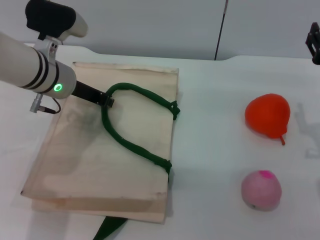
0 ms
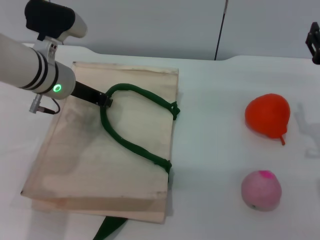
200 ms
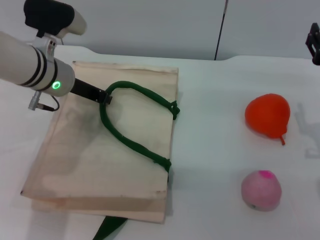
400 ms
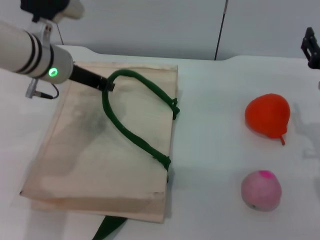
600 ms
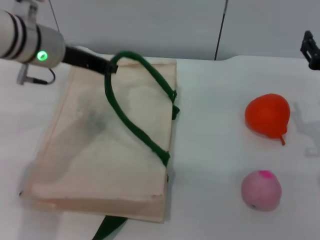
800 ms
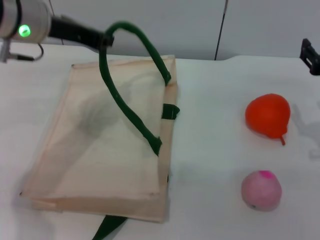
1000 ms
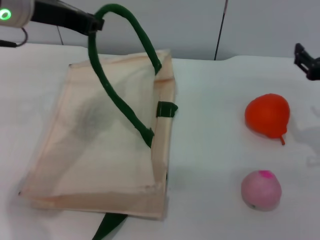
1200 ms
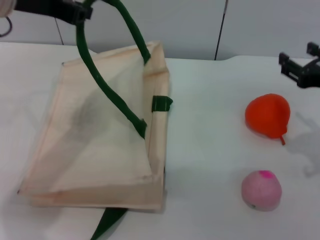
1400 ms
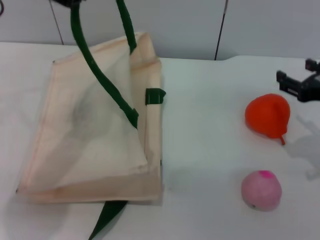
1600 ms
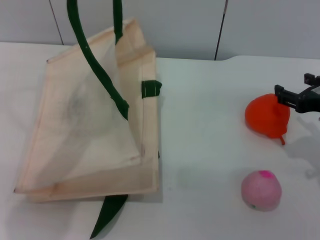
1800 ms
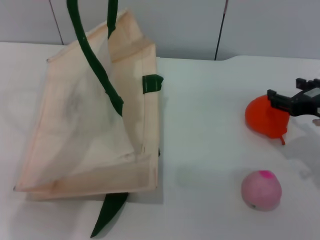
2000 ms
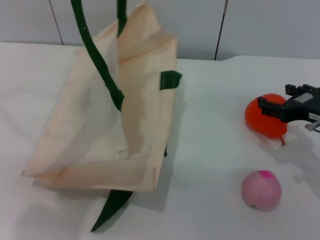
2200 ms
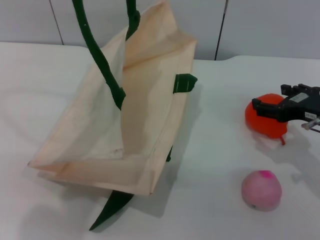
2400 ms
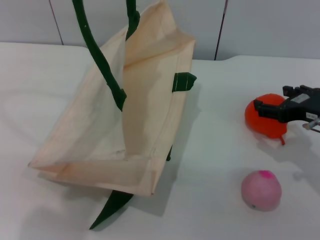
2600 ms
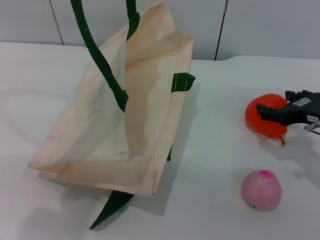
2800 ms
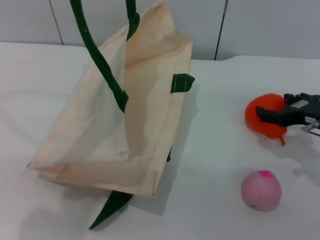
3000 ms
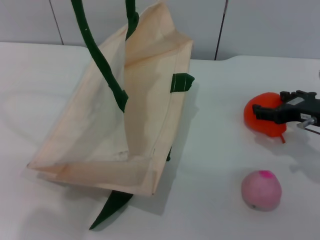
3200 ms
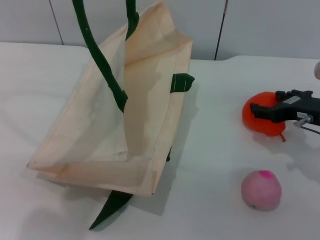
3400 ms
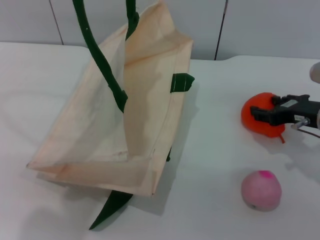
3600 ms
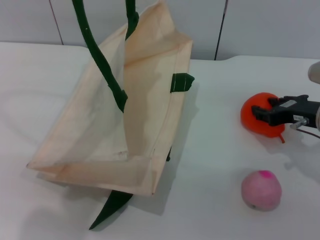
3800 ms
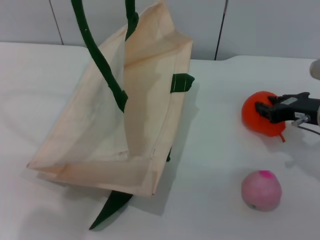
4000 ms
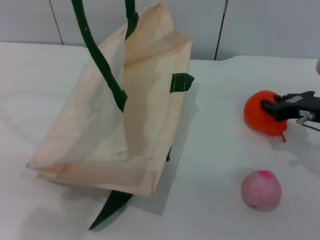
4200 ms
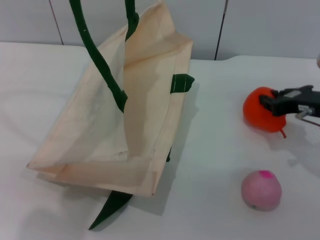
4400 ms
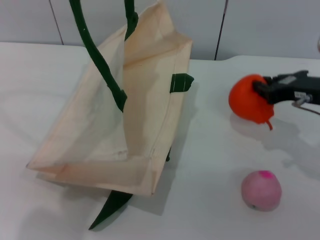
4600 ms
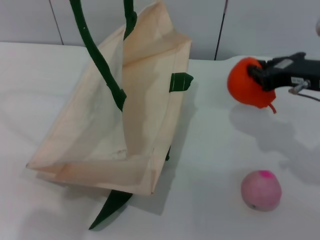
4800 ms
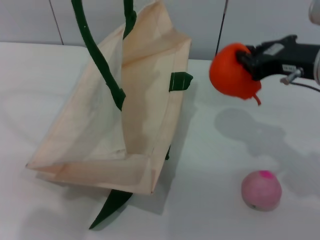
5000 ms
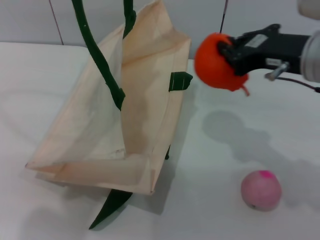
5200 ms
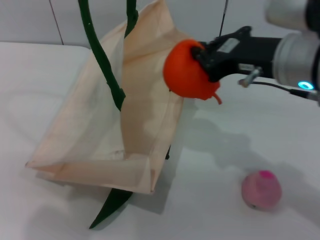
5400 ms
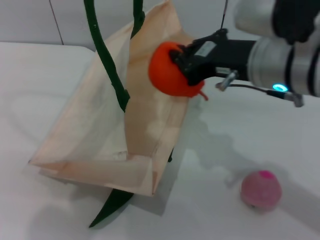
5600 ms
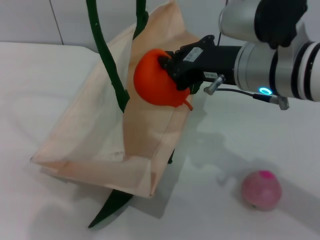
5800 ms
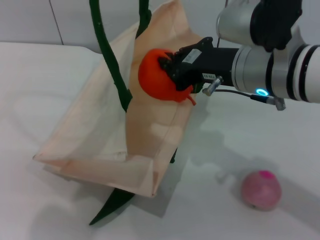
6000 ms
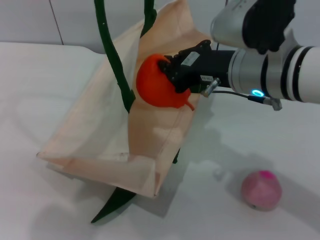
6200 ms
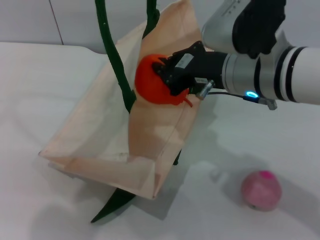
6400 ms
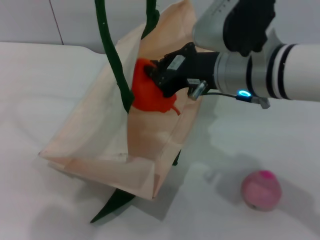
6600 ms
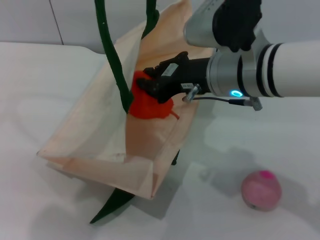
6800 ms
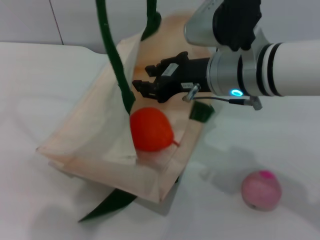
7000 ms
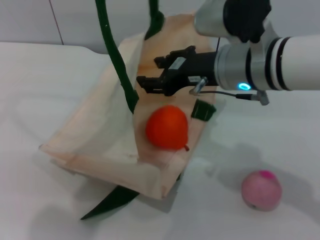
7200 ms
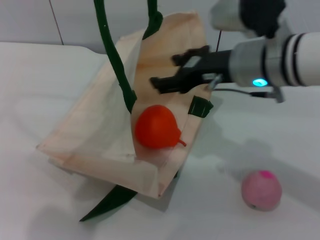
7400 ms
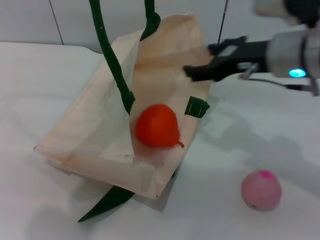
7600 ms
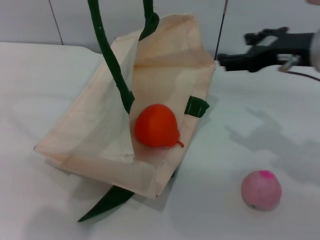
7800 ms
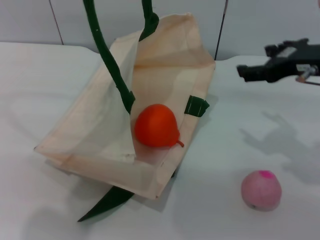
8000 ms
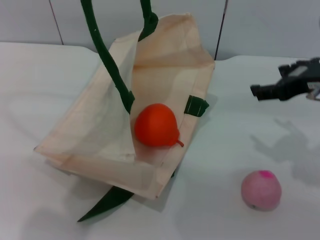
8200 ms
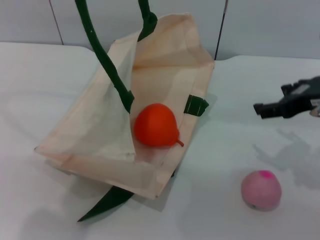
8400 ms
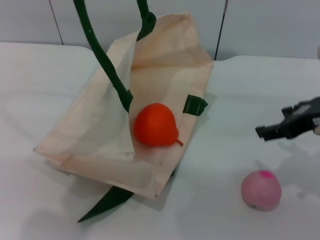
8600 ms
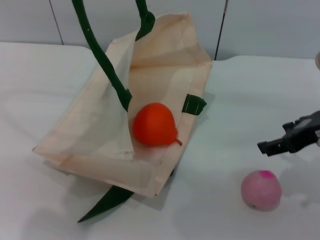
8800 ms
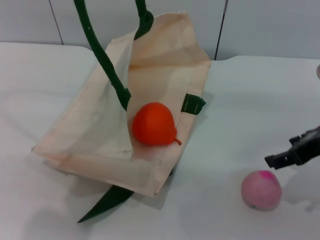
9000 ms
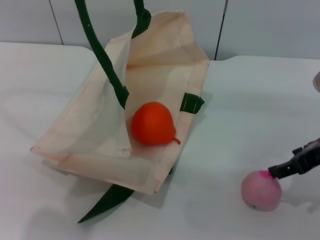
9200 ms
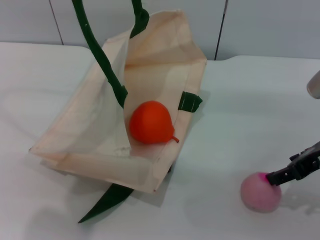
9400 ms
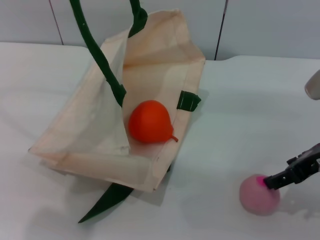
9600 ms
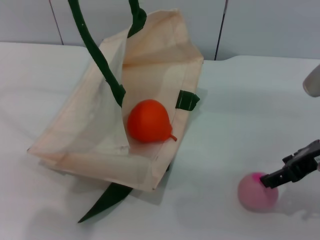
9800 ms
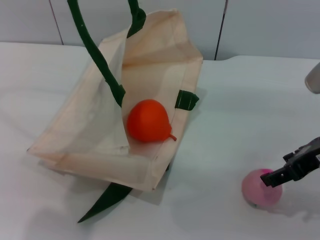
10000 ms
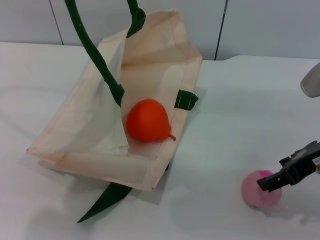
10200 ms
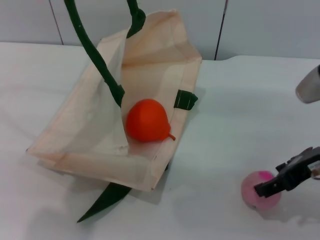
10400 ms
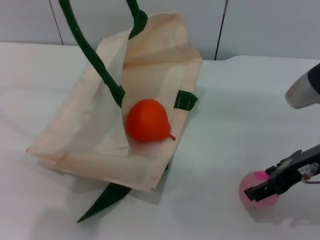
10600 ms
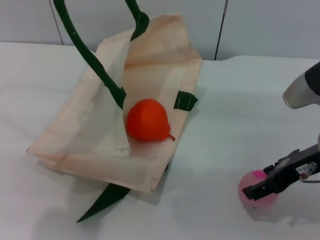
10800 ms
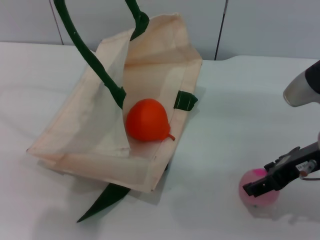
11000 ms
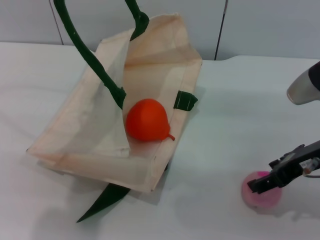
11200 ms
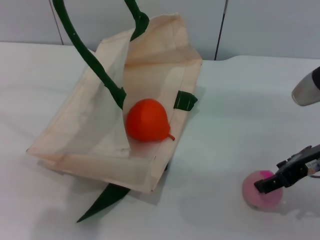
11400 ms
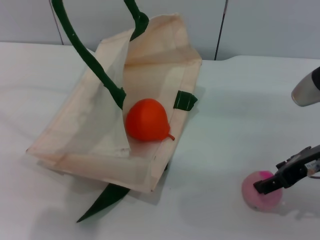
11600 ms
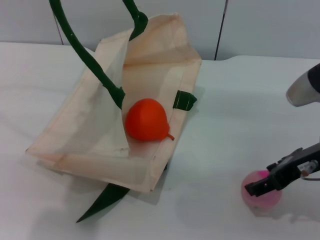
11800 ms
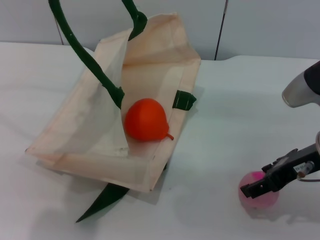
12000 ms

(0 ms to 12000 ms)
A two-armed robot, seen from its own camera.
Task of the whole recording: pick up the orange and peach from the table and place it in the white handbag.
Step, 1600 ms - 4800 ms: Pick up the orange with the right gripper.
Step, 5000 ms - 7200 ms: Place the orange into the woven bag with the right gripper.
0 ms - 1600 ms: The left gripper goes some 20 cm upward, and closes.
1600 ms - 3000 ms: The left gripper moves upward, approximately 5 cm.
3000 ms - 4400 ms: The right gripper closes its fingers.
4400 ms - 6000 ms: The right gripper goes roughly 15 cm to the left and upward.
6000 ms - 7600 ms: The right gripper shifts by roughly 5 cm, and opens its fingers.
7600 ms - 9000 ms: The right gripper moves to the right and backward, approximately 10 cm.
9000 ms - 12000 ms: The grippers make only small movements.

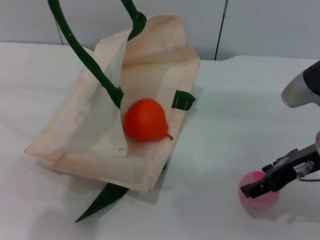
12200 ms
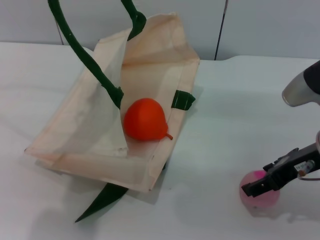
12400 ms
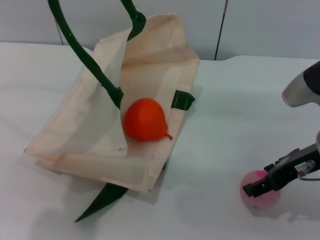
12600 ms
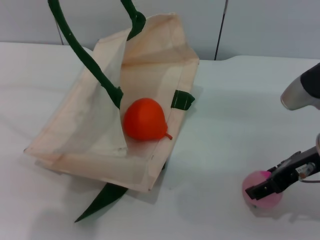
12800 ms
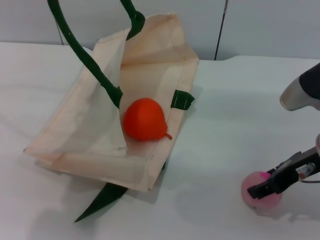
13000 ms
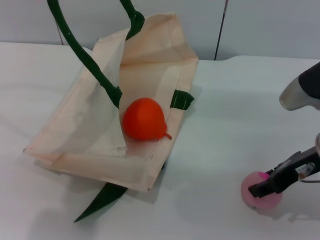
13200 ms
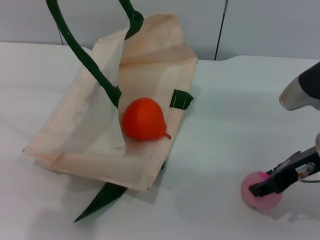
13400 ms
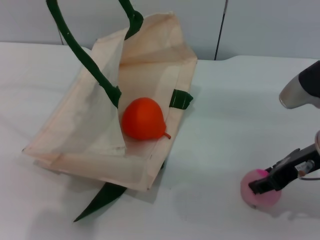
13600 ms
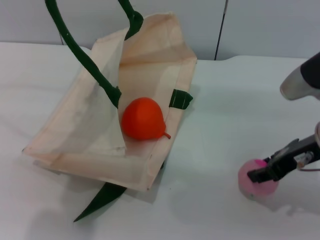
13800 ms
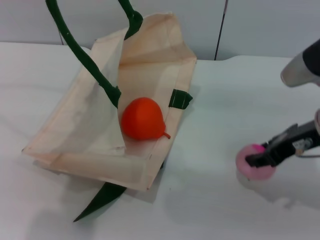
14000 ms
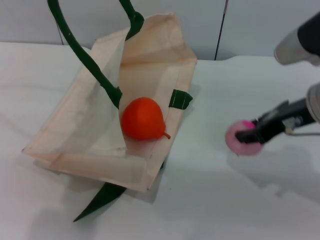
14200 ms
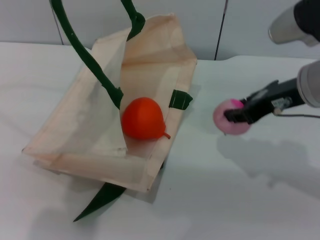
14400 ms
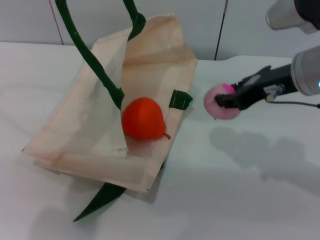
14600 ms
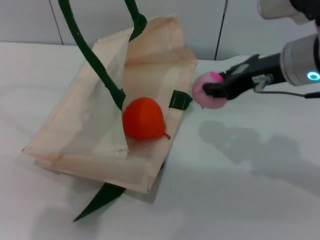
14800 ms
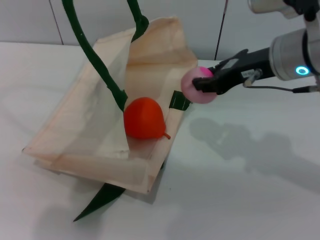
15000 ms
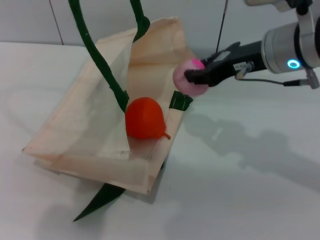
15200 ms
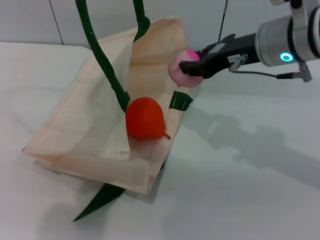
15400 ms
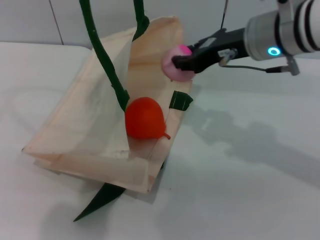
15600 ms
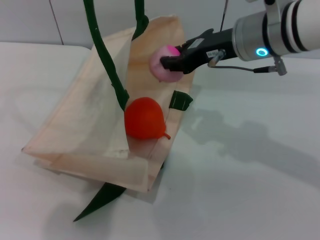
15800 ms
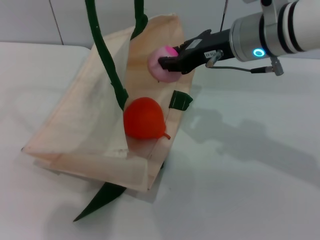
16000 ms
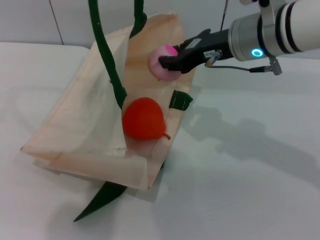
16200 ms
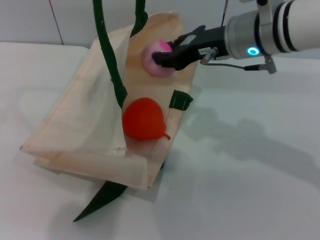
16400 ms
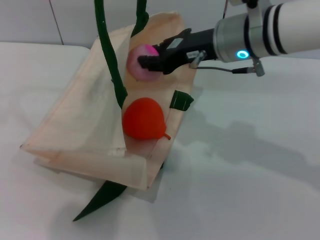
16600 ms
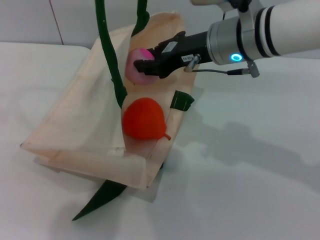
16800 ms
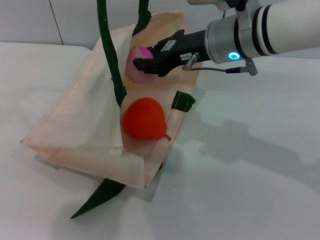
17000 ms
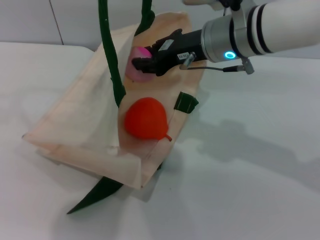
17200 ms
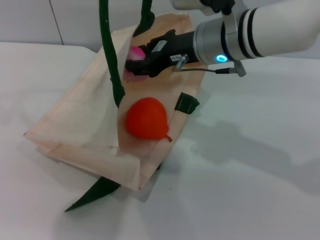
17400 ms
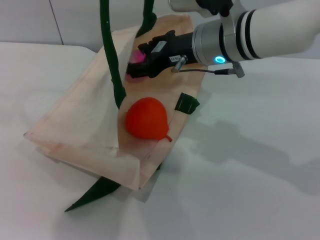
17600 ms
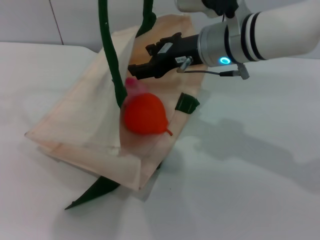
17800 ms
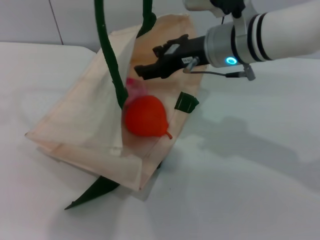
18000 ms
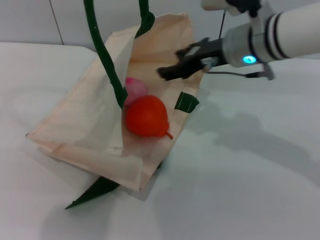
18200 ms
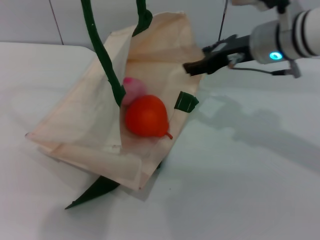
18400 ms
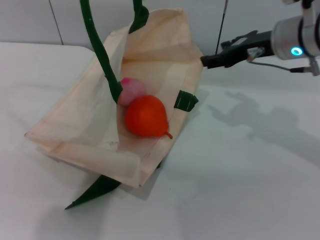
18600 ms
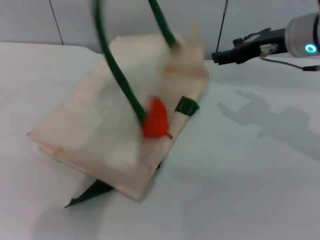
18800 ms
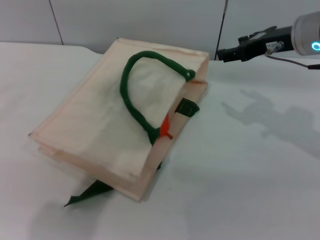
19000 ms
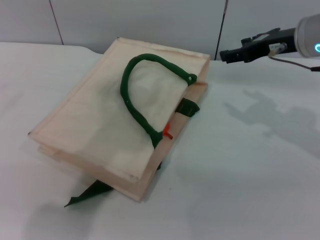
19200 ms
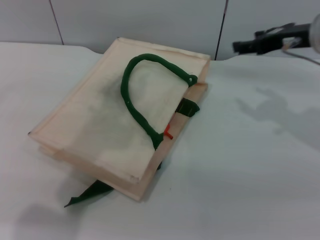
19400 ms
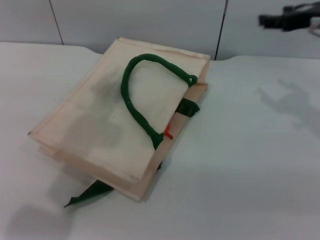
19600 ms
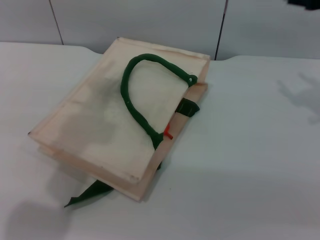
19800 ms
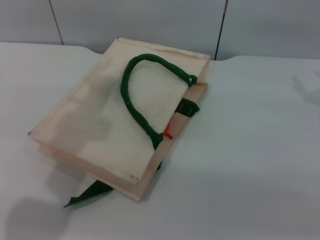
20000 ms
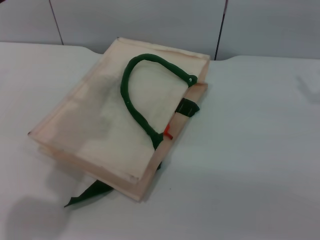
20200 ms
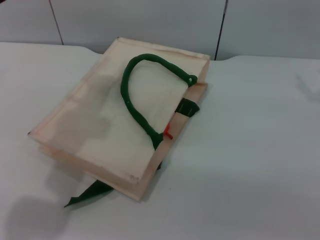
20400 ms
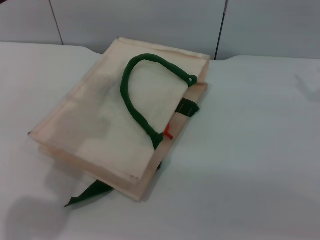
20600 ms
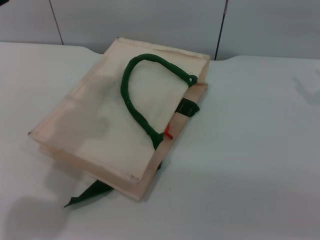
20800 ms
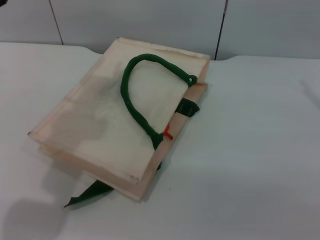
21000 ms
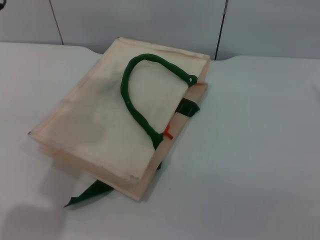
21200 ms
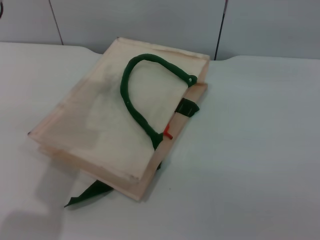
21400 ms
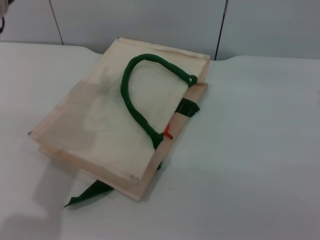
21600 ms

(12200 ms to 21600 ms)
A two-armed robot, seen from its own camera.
Task of the whole recording: pick up the orange and peach from the table and place it in the white handbag.
Step, 14200 ms - 18000 ms: Place the peach into the woven bag with the right gripper.
Step, 18200 ms - 19000 ms: Lower the woven bag with the left gripper to close it.
12200 ms - 13800 ms: The right gripper closes up.
13800 ms - 15400 ms: The right gripper travels to the left, forward and upward by some 10 cm.
15400 ms - 17000 ms: The right gripper shifts some 5 cm to the left.
17000 ms - 18400 ms: The right gripper goes some 5 cm to the right, and opens its fingers.
18400 ms - 20000 ms: The left gripper is displaced downward by approximately 10 cm, and opens, while the right gripper is displaced to the right by about 15 cm.
20000 ms - 21600 ms: The left gripper travels downward by roughly 5 cm.

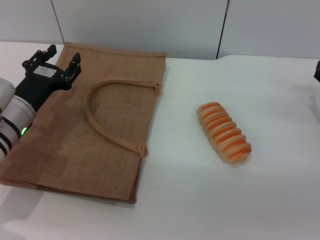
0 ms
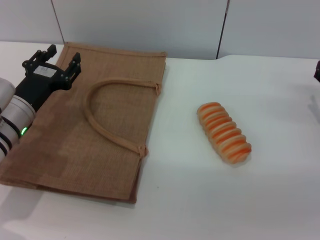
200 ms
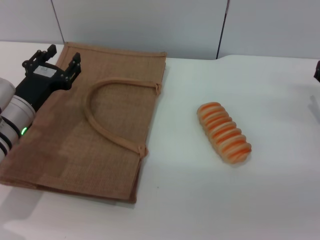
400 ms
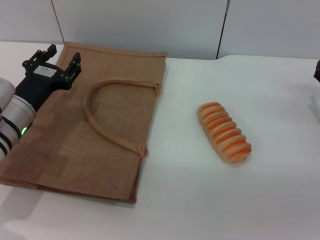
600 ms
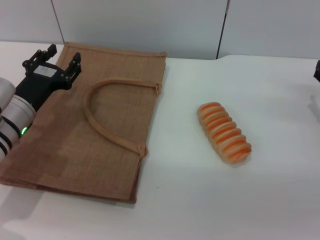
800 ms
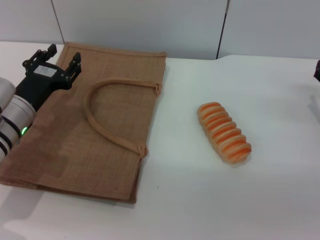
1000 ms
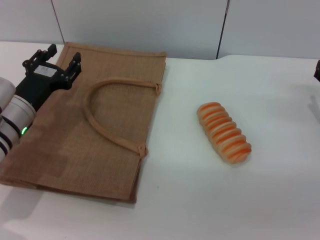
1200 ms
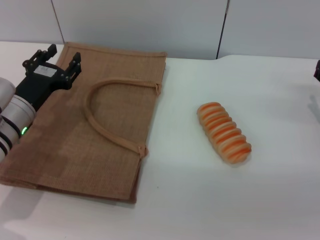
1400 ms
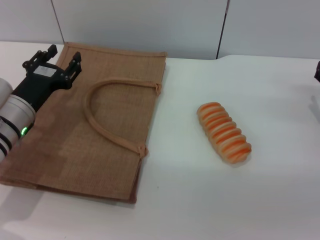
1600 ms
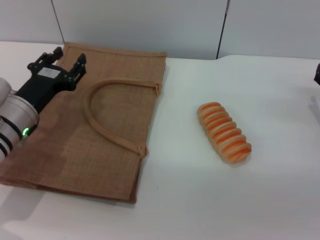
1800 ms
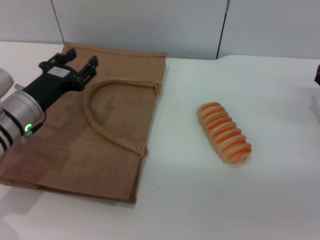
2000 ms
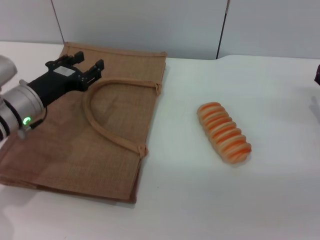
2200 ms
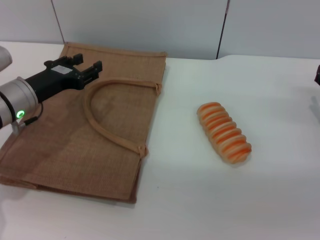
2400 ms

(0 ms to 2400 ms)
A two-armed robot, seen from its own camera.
Task of the whole recording: pick up the bread from the table and place it in the brown handbag.
0 ms - 1200 ms: Neither gripper changes place.
